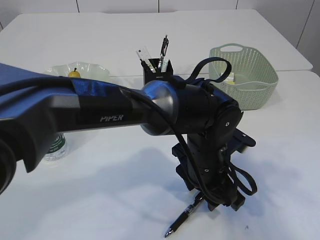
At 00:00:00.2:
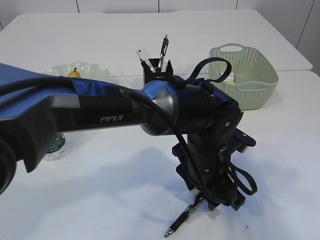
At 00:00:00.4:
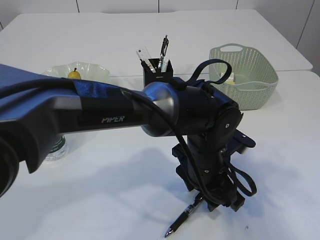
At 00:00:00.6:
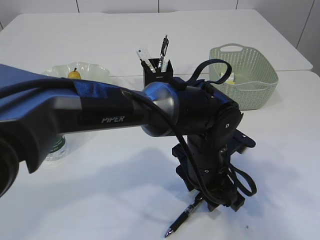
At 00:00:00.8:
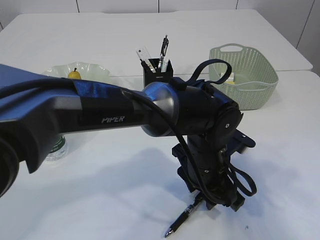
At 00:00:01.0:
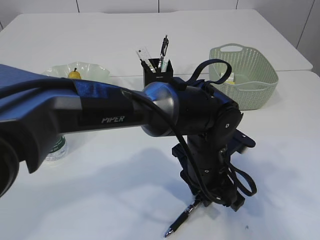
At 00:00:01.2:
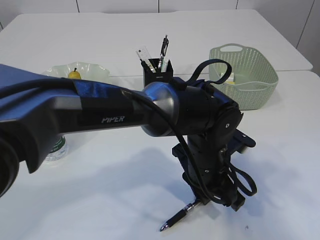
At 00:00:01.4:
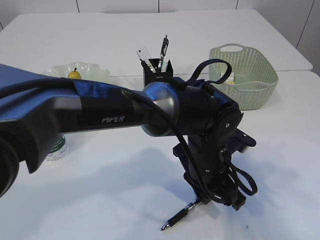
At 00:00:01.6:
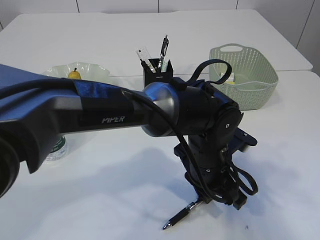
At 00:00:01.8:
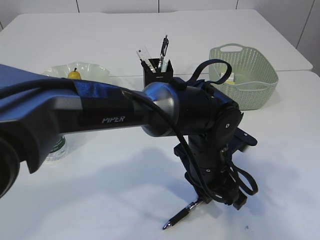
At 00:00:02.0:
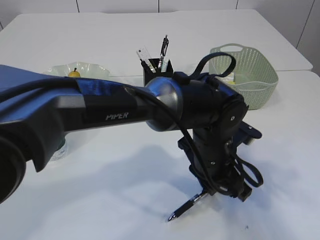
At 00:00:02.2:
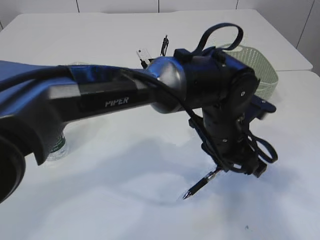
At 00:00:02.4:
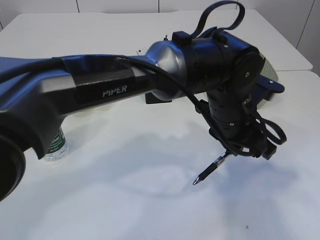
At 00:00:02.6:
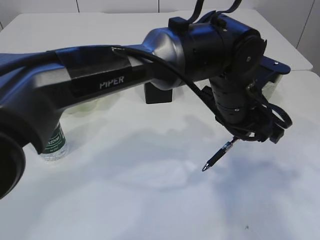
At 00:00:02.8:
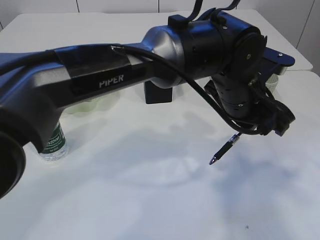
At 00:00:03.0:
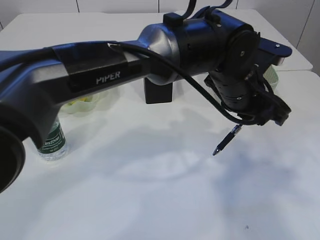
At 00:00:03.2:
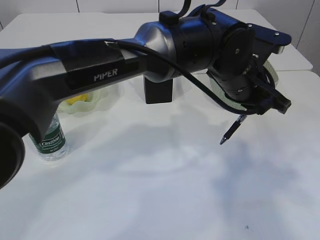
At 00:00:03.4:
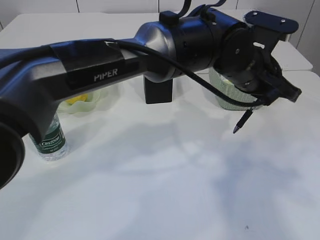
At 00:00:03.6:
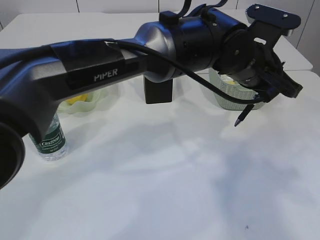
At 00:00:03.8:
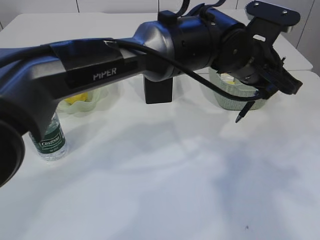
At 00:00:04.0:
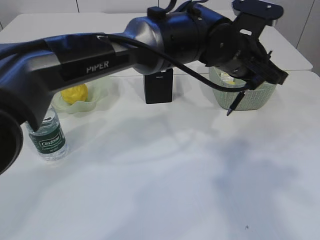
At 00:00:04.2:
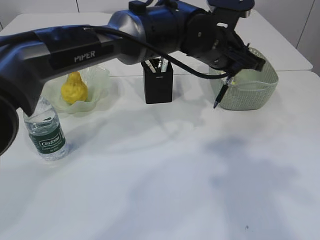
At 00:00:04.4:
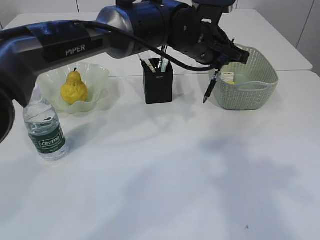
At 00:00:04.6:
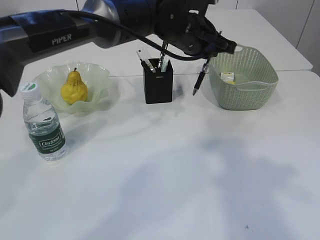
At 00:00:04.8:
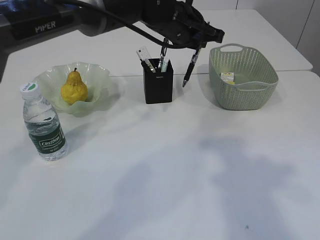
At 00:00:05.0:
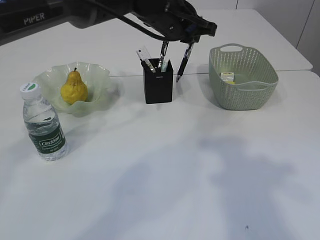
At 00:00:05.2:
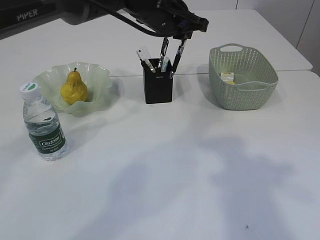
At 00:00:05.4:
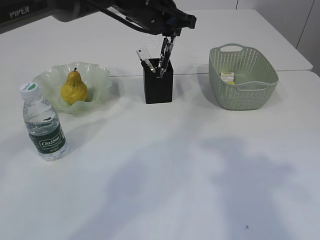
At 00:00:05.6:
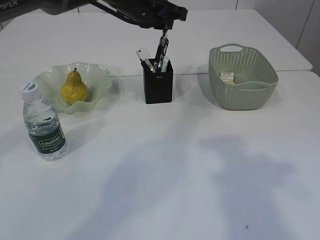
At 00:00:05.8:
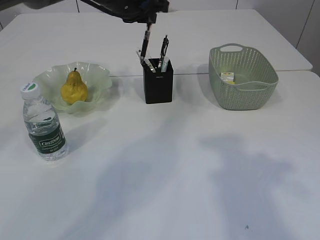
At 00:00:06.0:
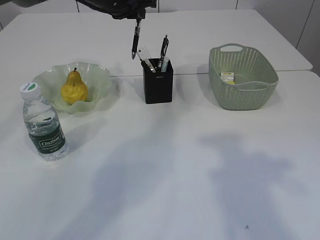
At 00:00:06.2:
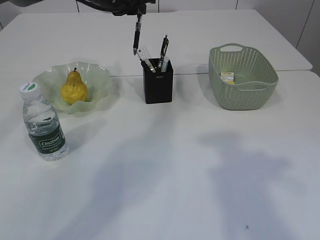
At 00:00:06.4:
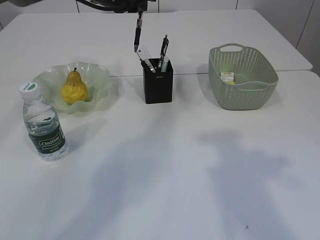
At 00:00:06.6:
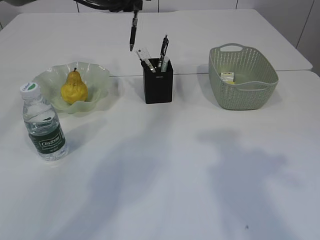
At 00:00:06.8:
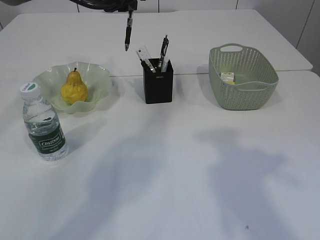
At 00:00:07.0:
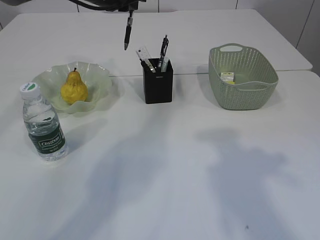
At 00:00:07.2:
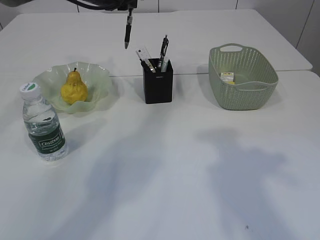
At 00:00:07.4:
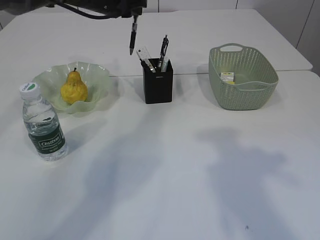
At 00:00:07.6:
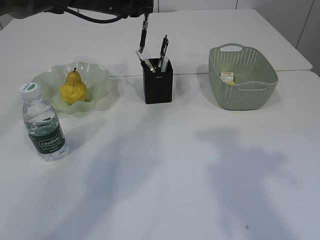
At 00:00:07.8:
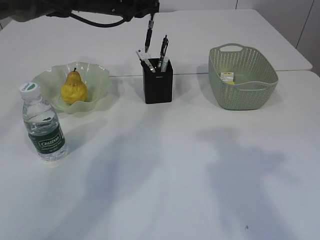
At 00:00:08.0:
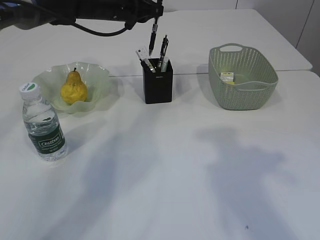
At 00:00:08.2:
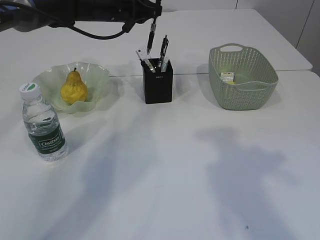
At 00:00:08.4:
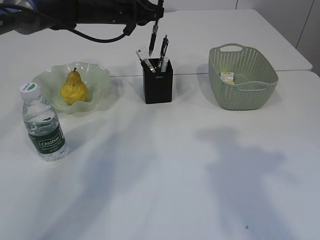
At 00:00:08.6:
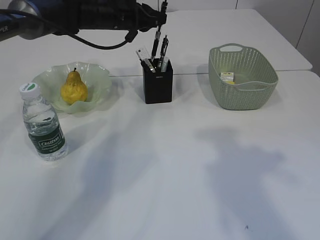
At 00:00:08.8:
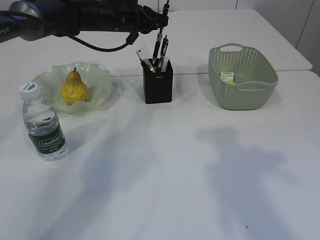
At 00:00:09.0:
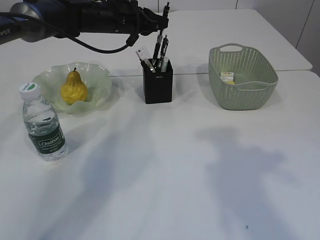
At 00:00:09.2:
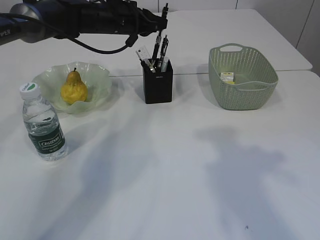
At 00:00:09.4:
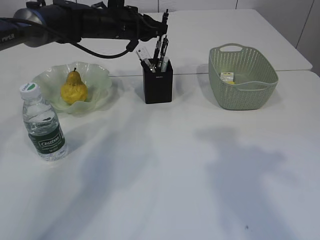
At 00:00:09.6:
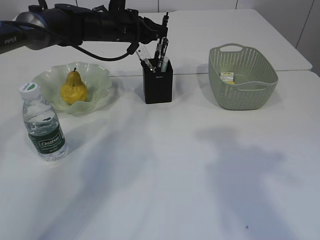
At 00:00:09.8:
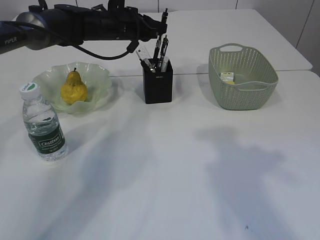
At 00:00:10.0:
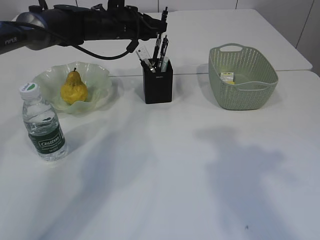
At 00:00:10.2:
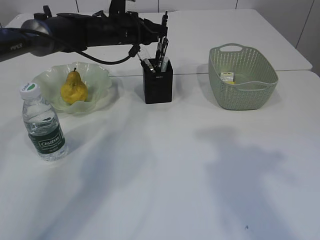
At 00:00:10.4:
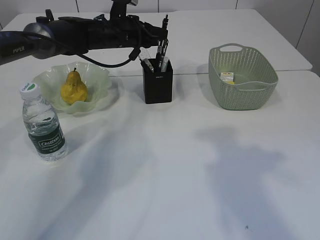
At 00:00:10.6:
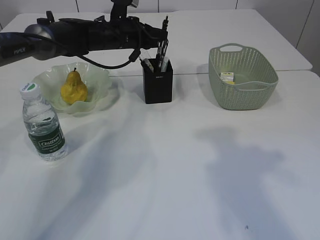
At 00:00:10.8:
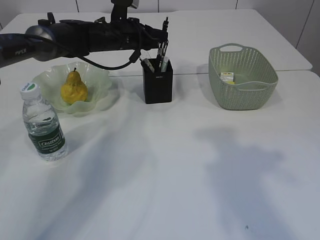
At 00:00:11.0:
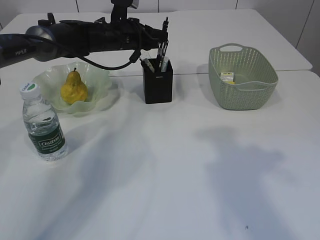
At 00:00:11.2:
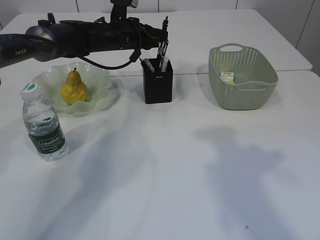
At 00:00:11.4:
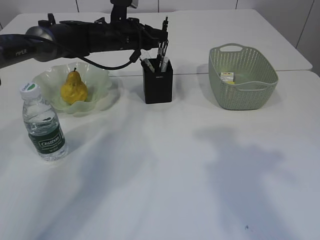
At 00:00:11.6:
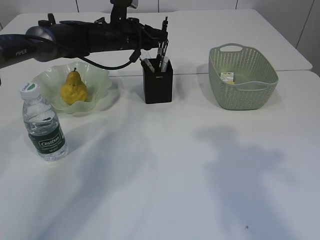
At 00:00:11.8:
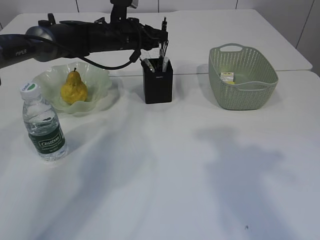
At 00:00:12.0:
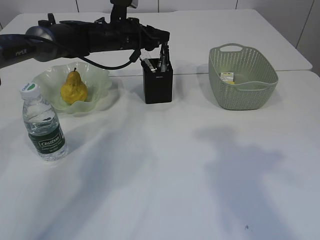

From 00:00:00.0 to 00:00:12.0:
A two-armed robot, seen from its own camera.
Step, from 00:00:00.0 to 00:00:02.6: Pick up the pen with left arm.
From 00:00:00.0 to 00:00:01.6: The left gripper closes.
From 00:00:01.6 to 00:00:03.0: The left gripper heads upward and forward, covering some 10 cm.
From 00:00:03.0 to 00:00:04.4: The left gripper heads forward and to the left, covering some 10 cm.
From 00:00:04.4 to 00:00:06.0: The left gripper shifts about 15 cm to the left and forward.
From 00:00:06.0 to 00:00:07.6: The grippers make only small movements.
From 00:00:07.6 to 00:00:09.0: There are only small adjustments of the grippers.
From 00:00:09.0 to 00:00:10.4: There are only small adjustments of the grippers.
From 00:00:10.4 to 00:00:12.0: The left gripper opens.

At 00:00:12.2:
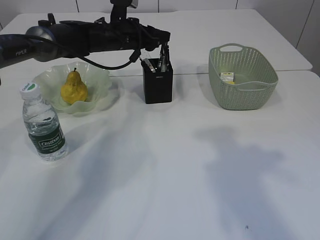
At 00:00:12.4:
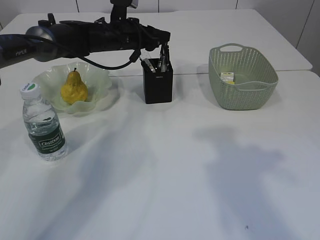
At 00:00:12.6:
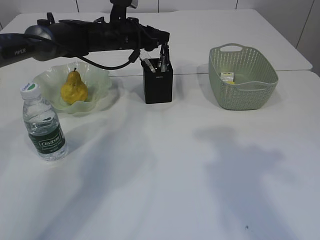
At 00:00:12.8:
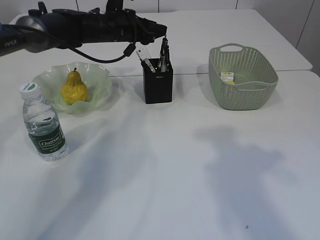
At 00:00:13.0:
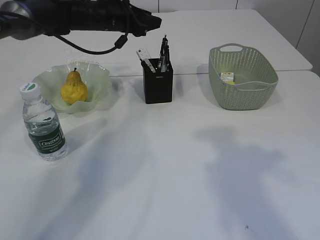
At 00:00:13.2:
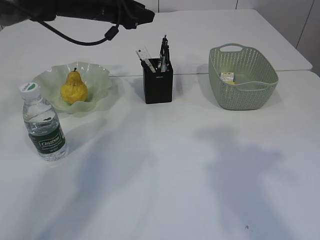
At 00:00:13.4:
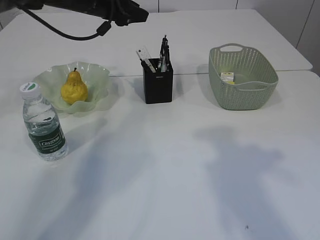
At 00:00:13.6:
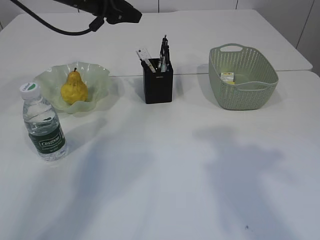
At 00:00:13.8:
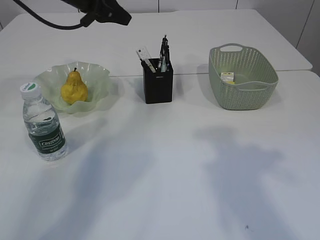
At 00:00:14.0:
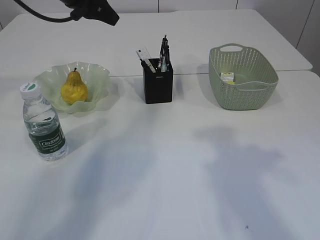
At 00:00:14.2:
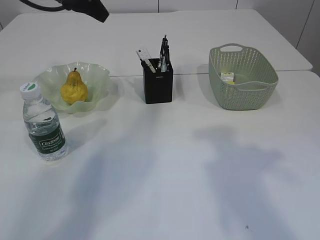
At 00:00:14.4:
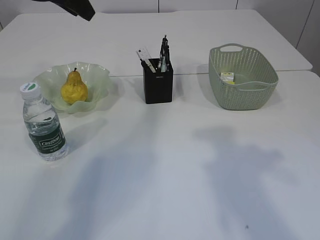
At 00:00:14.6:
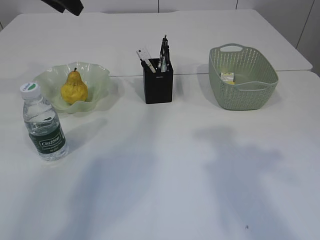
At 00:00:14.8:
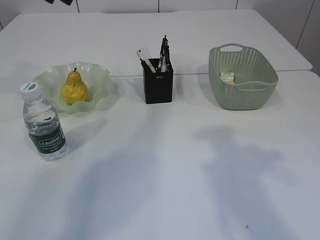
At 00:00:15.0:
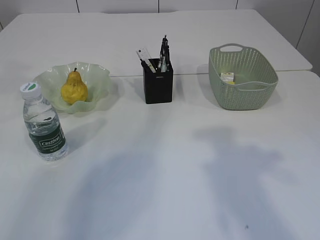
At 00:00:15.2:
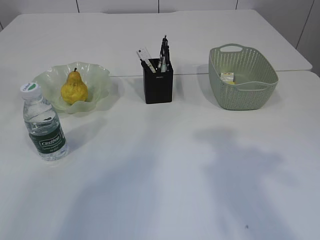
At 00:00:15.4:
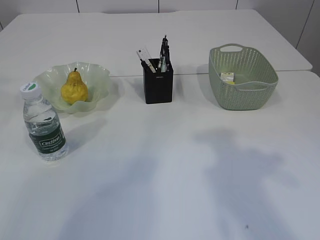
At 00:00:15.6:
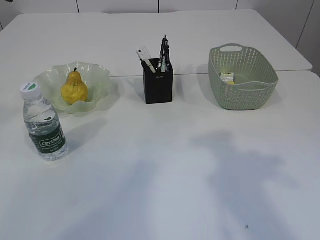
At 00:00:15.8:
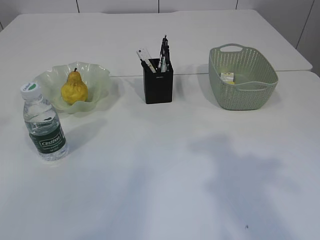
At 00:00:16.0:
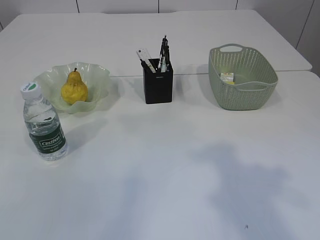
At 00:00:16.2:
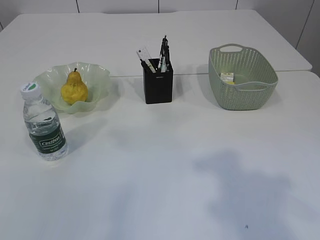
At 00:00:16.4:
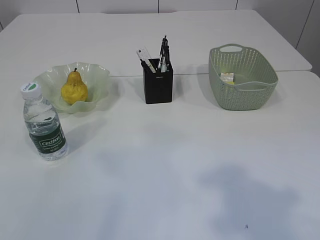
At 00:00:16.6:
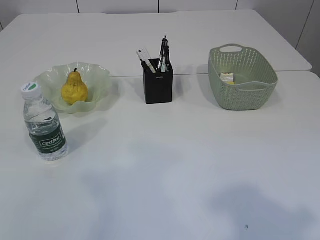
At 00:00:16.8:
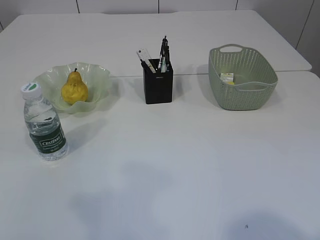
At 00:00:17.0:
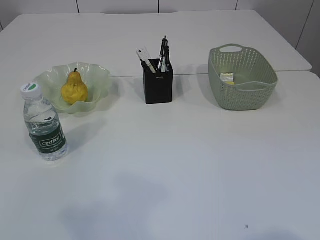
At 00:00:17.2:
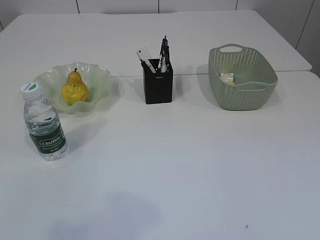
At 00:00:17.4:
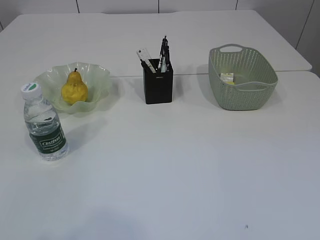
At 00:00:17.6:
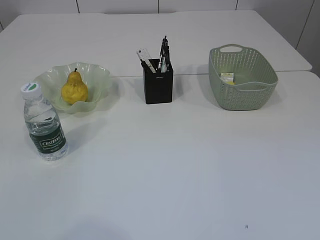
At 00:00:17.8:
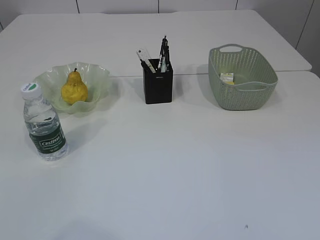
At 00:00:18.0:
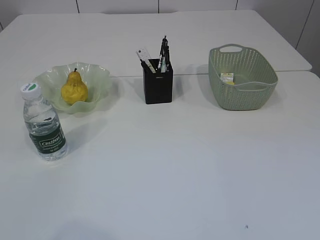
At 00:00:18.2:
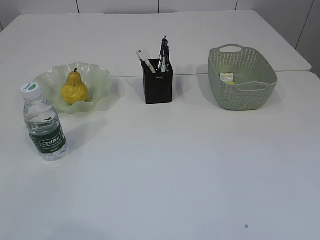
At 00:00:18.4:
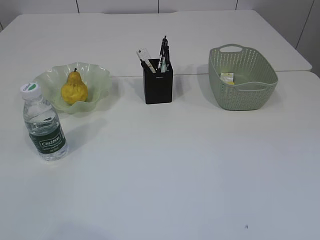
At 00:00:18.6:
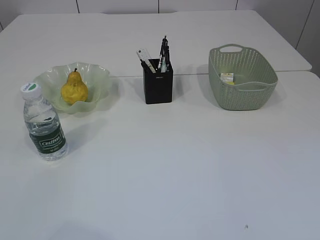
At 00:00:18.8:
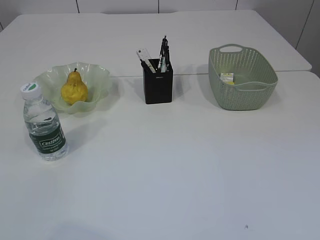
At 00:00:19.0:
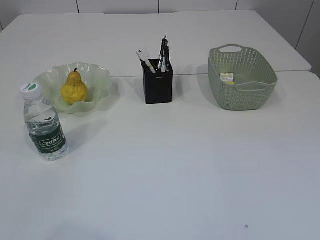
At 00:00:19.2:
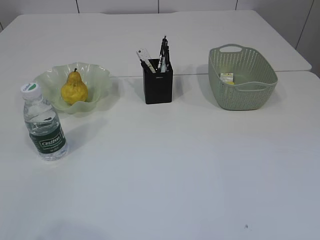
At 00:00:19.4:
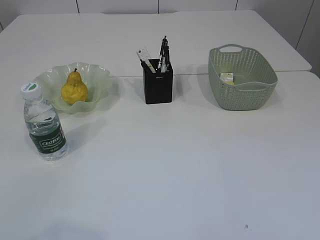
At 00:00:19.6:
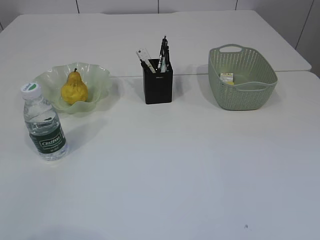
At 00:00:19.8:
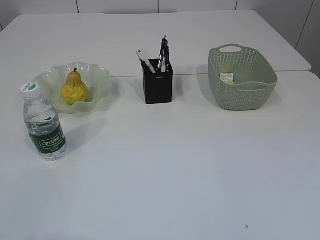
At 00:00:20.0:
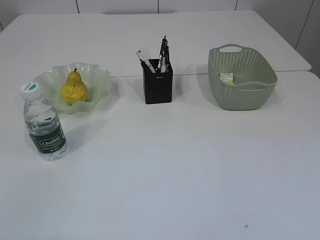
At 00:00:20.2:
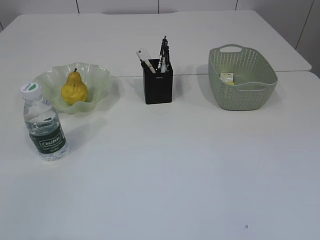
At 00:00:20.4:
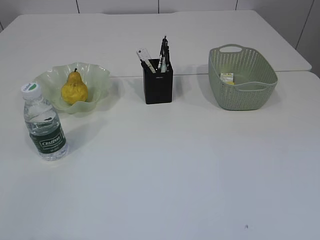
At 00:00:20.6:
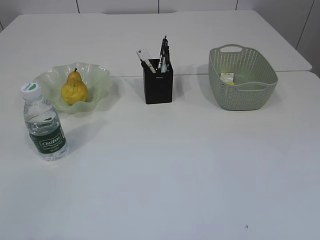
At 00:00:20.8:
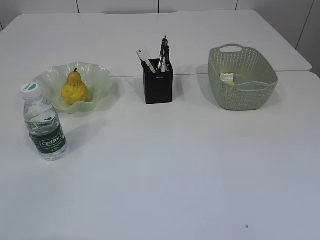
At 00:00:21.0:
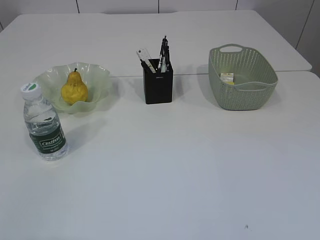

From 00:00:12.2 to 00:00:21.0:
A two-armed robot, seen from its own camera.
From 00:00:12.2 to 00:00:13.6: The left gripper goes approximately 10 cm upward and to the left.
From 00:00:13.6 to 00:00:15.2: The left gripper is displaced backward, upward and to the left by approximately 20 cm.
From 00:00:15.2 to 00:00:16.6: The left gripper travels backward by approximately 25 cm.
